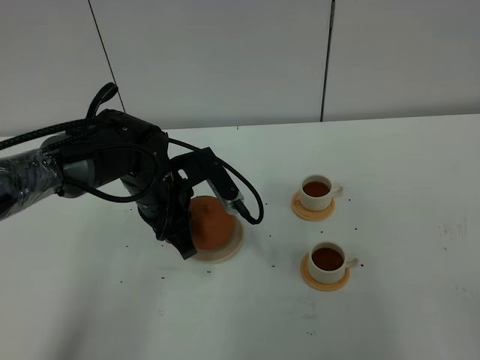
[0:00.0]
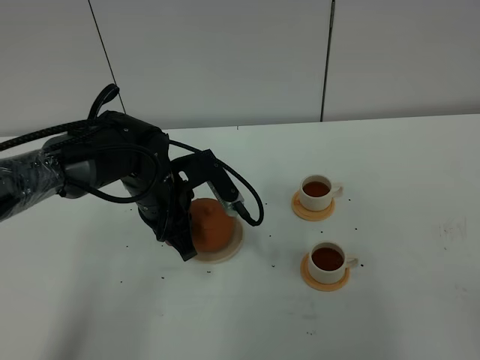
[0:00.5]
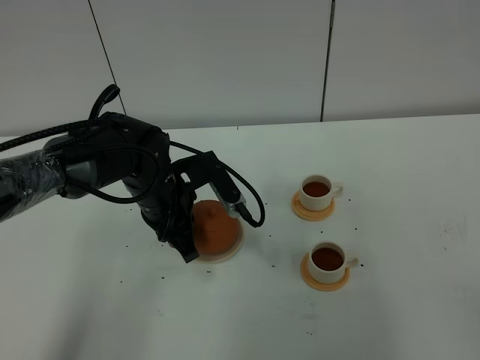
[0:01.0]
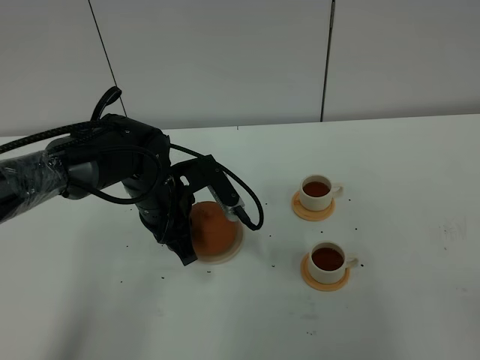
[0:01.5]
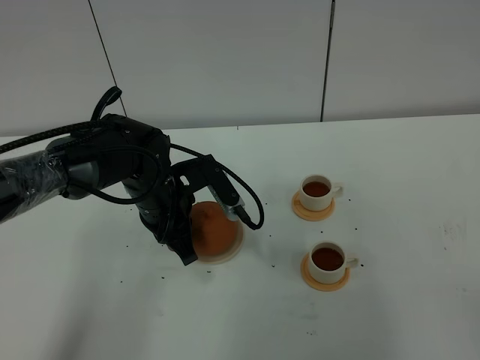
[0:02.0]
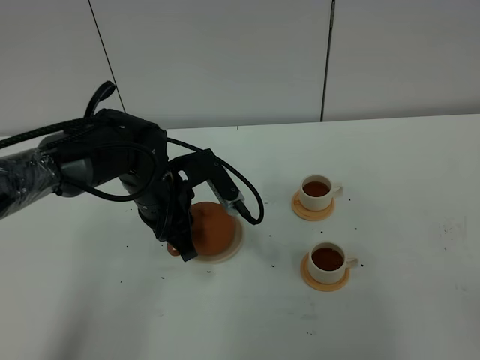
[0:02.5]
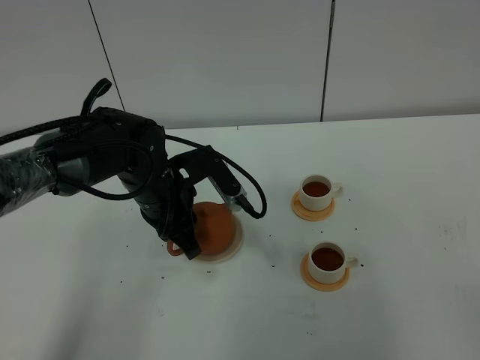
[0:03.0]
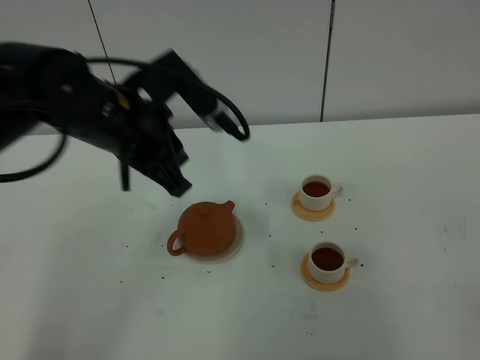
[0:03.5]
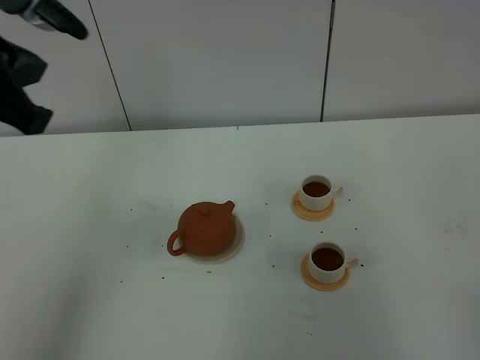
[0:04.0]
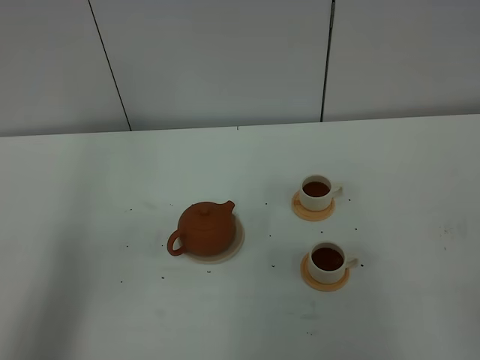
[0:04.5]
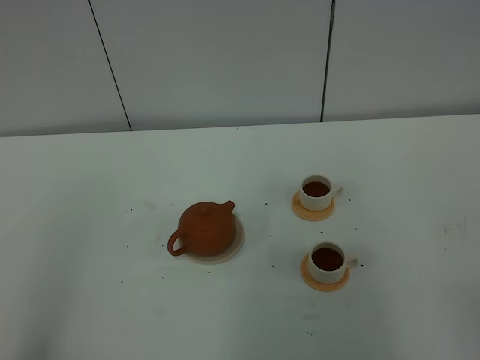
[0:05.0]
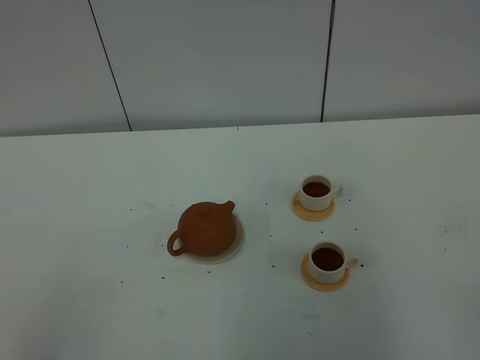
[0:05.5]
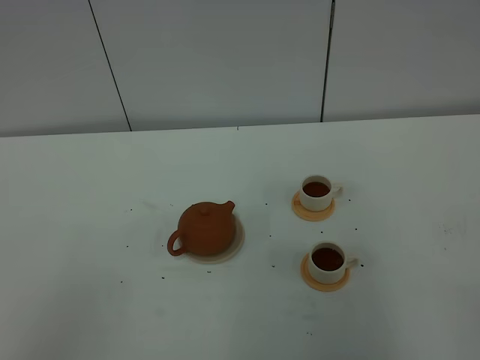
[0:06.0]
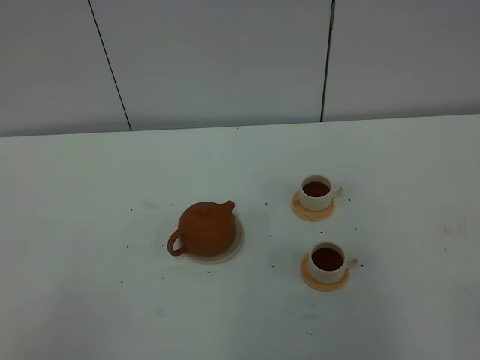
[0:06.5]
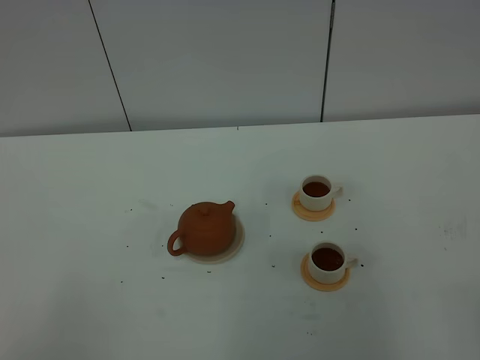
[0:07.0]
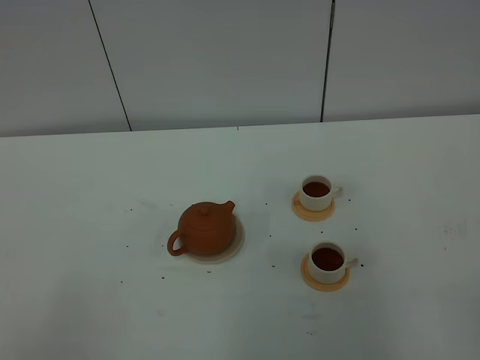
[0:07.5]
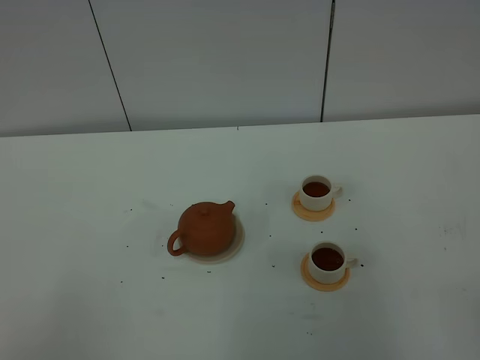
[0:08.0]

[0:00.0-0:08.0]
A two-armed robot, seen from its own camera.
Task of the whole recording: grasp the brown teapot and pour the tea into the two white teacups one by one, put the brown teapot back in its original place.
Step, 0:00.0 to 0:03.0: Put down the teapot with left gripper.
0:00.0 to 0:02.0: Neither gripper changes place.
0:02.0 to 0:04.0: The left gripper goes roughly 30 cm upward and backward, and opens, then closes once more.
0:04.0 to 0:06.0: The left gripper moves backward and downward, approximately 30 cm.

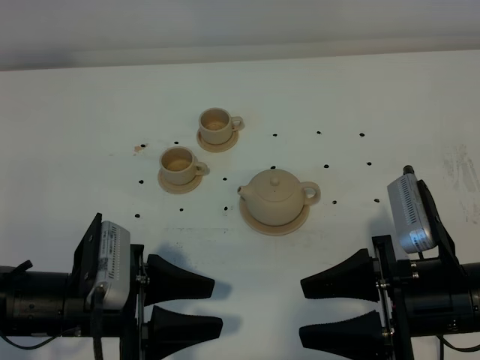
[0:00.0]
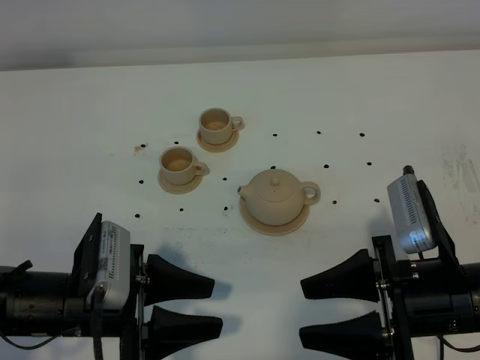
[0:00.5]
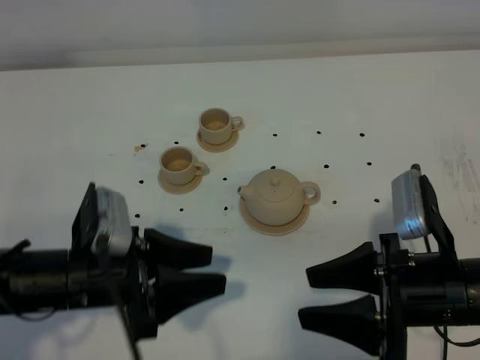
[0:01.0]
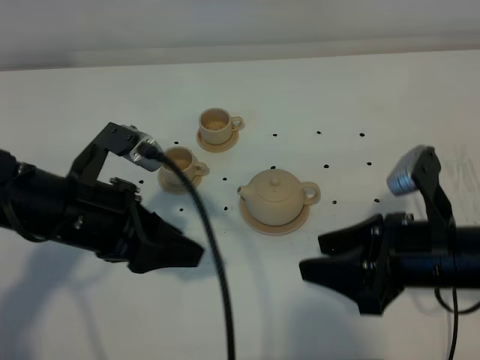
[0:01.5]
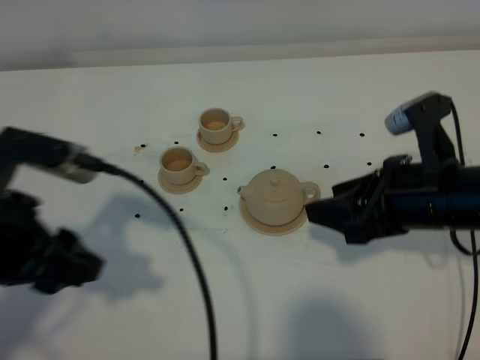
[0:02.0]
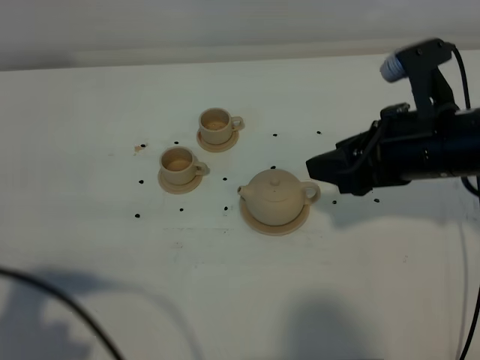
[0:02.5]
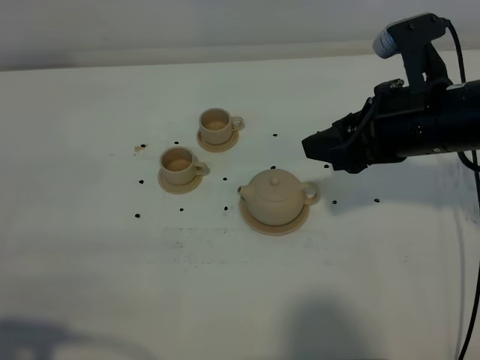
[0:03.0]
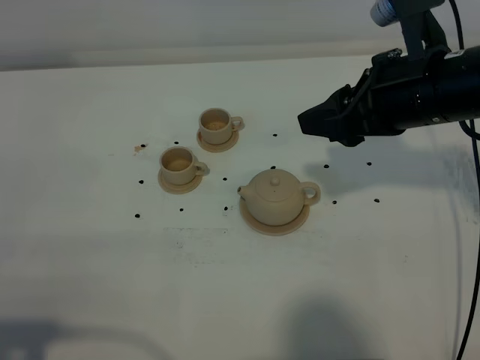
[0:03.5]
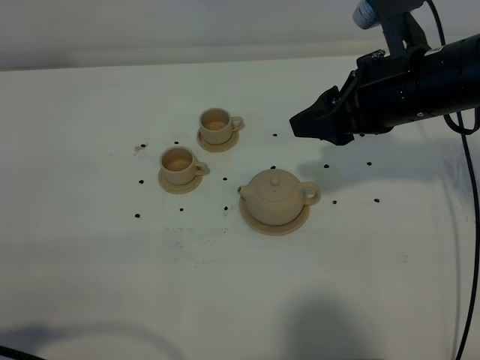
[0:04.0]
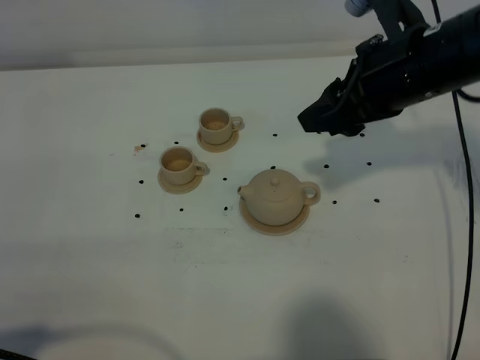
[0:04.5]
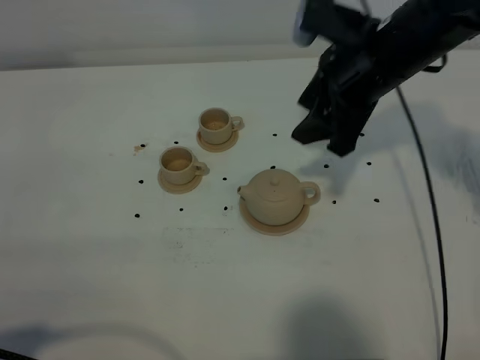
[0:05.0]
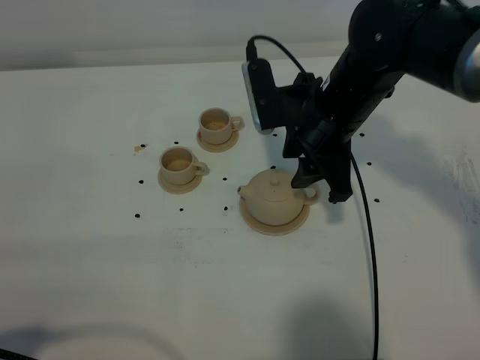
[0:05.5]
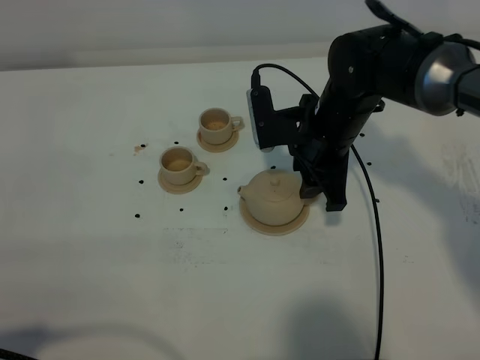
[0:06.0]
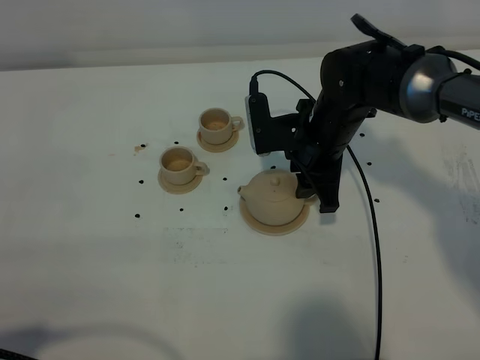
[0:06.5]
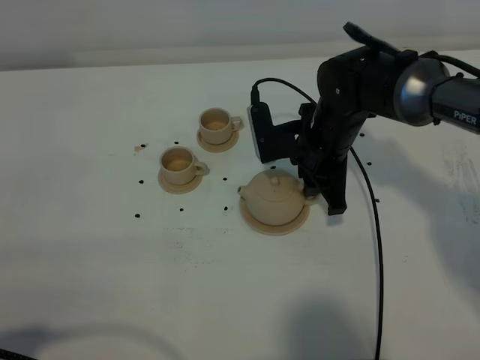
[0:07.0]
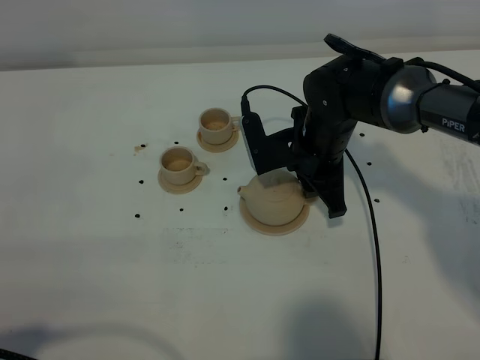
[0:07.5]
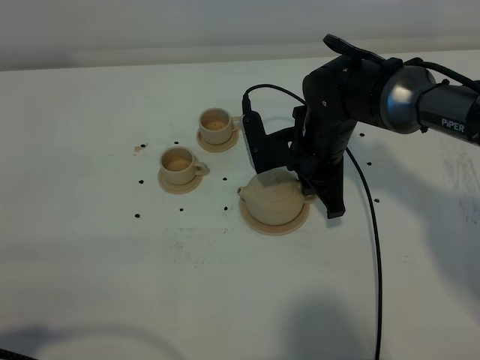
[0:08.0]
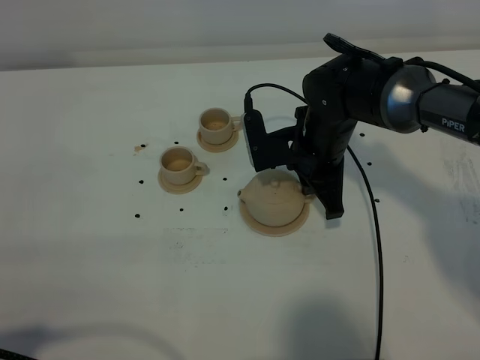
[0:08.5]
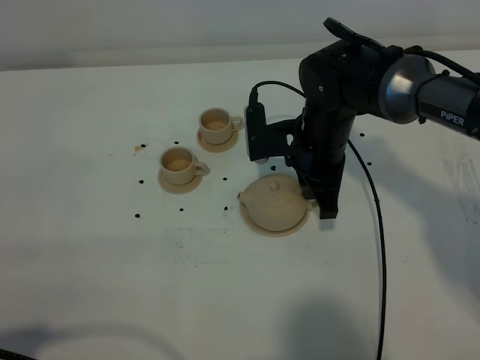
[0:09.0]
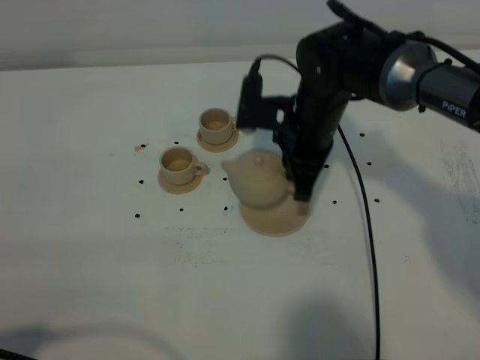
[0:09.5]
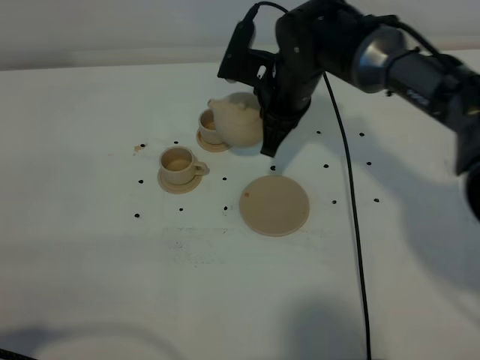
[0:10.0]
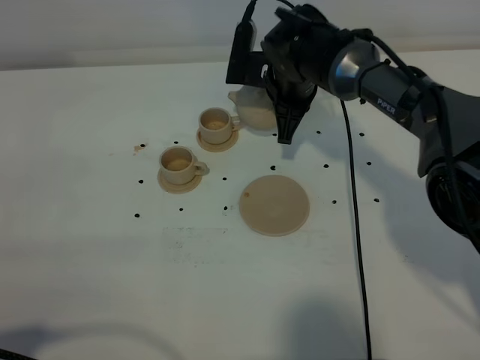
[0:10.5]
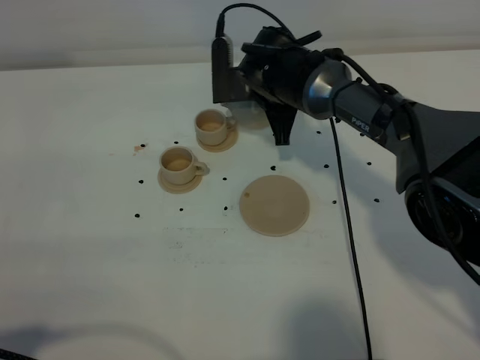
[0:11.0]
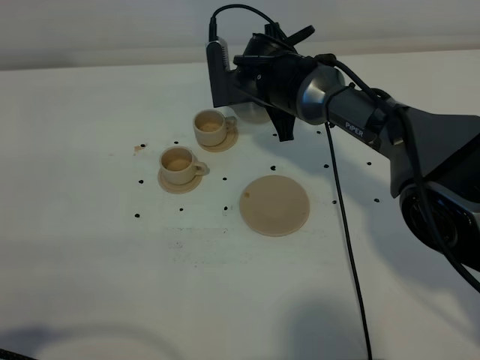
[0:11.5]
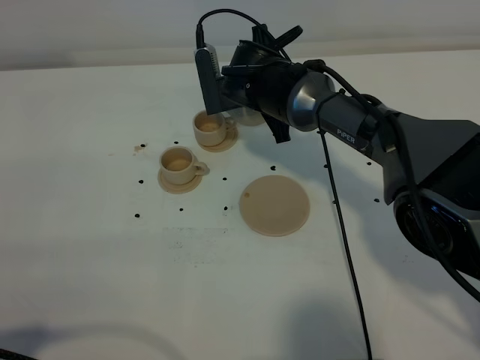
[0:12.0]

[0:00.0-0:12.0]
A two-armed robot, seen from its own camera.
Task of the whole recording: grasp the brown teapot and pour the tea into the two brown teacups one by one, put the brown teapot back in its original place.
Step, 0:00.0 to 0:09.0: Pick up the teapot with the right gripper.
0:00.0 to 0:02.0: The right gripper moves forward, approximately 10 cm; the left gripper is displaced upward by some 15 cm.
0:02.0 to 0:04.0: The left gripper is displaced backward and to the left by roughly 20 cm. The right gripper heads forward and upward, covering roughly 10 cm.
0:04.0 to 0:06.0: The right gripper moves downward, to the left and forward, roughly 15 cm.
0:06.0 to 0:08.0: The right gripper closes its fingers.
0:08.0 to 0:10.0: The right gripper shifts approximately 5 cm forward.

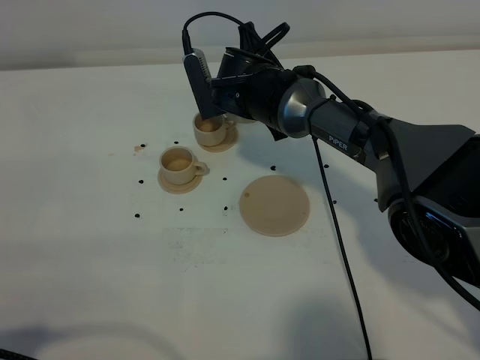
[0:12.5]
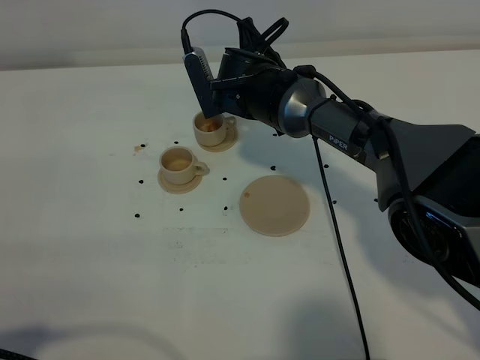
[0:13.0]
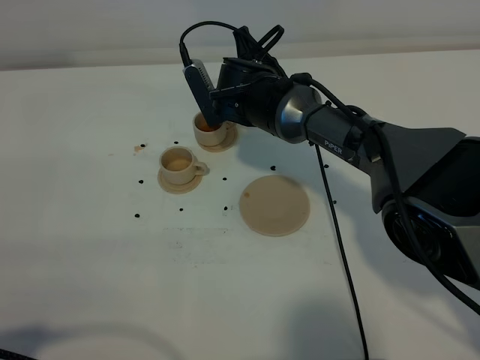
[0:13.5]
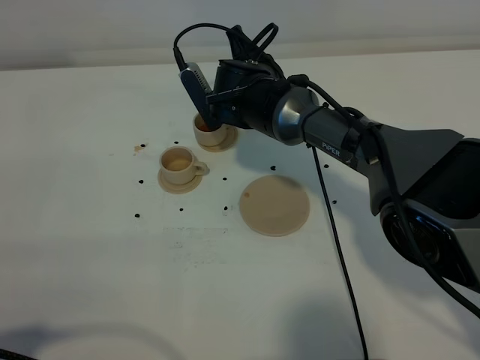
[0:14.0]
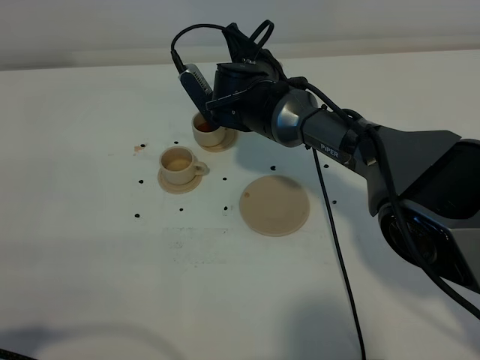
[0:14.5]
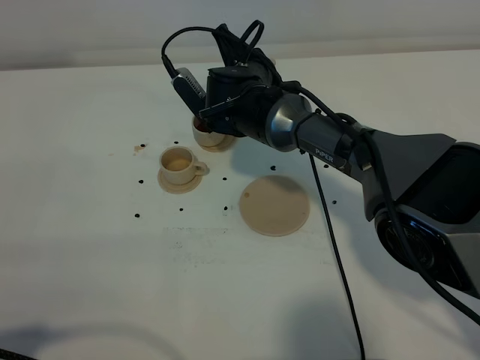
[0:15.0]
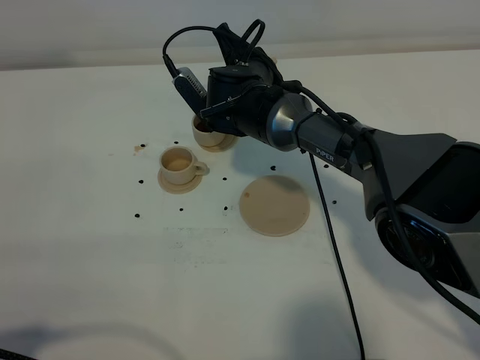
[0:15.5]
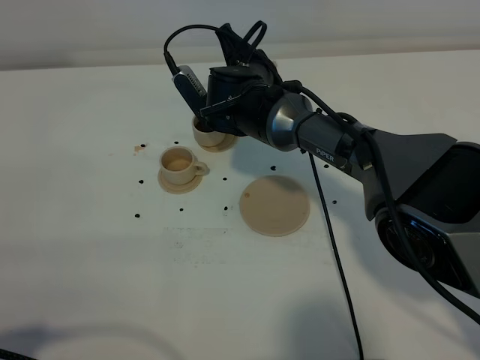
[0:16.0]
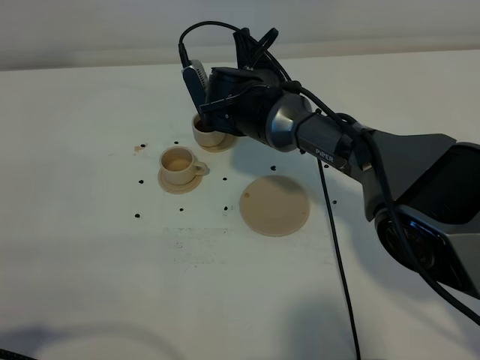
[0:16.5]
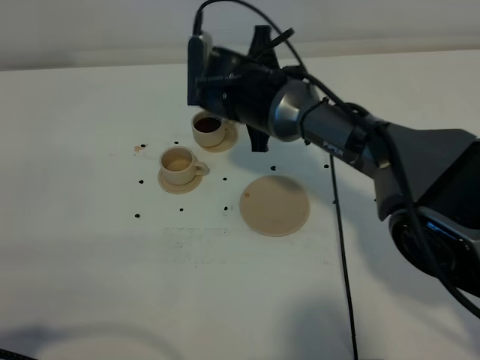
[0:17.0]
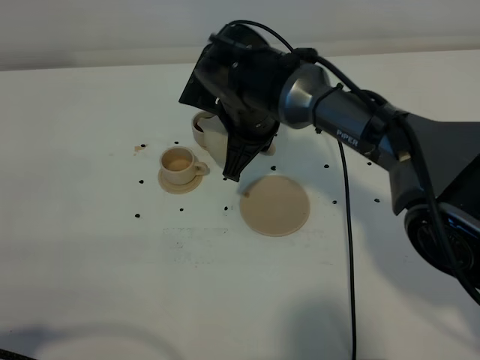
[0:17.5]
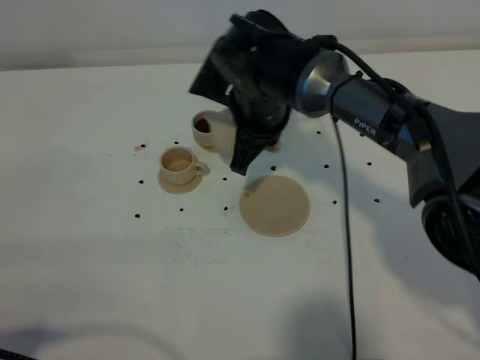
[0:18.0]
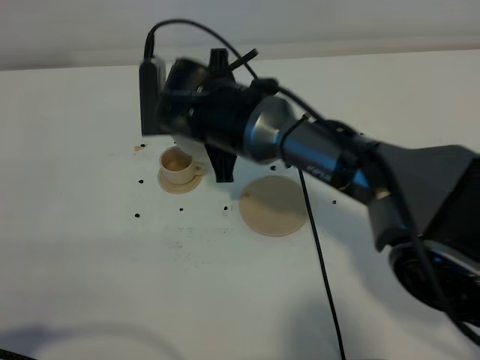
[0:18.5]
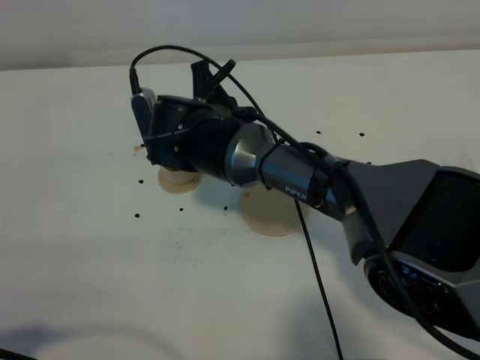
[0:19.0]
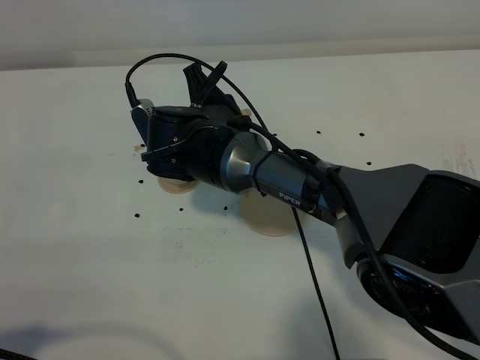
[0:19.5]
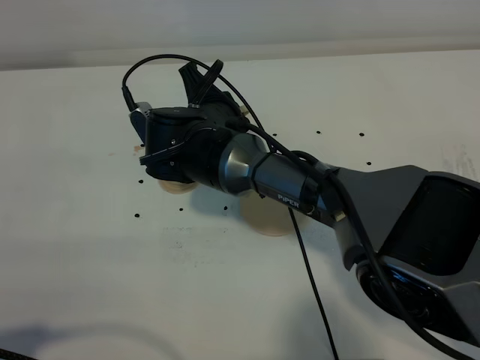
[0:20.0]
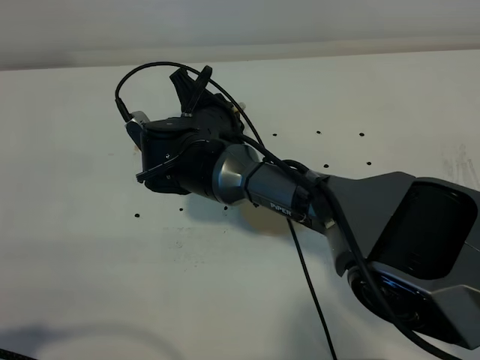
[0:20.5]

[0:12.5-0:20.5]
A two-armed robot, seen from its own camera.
Task of the whole recording: grasp the brown teapot and pour the tea into the two brown teacups one by one, put the brown teapot back in its original place.
Step, 0:12.5 to 0:17.0: Pour tea into the teacup with the right gripper.
0:12.5 to 0:14.5: The grippers stay close to where they were, moving slightly.
0:14.5 to 0:16.5: The grippers stay close to where they were, moving slightly.
0:16.5 to 0:18.5: The right gripper moves backward, some 5 cm.
